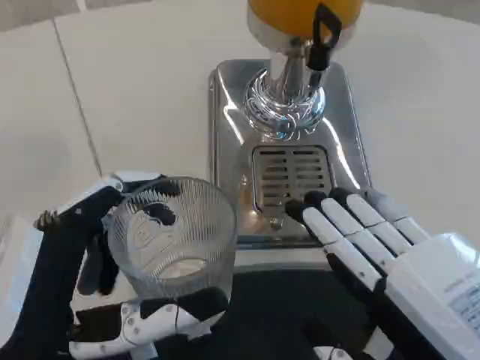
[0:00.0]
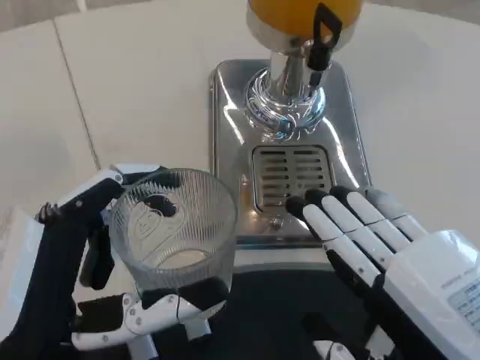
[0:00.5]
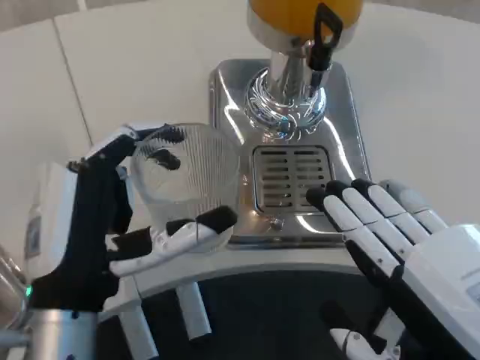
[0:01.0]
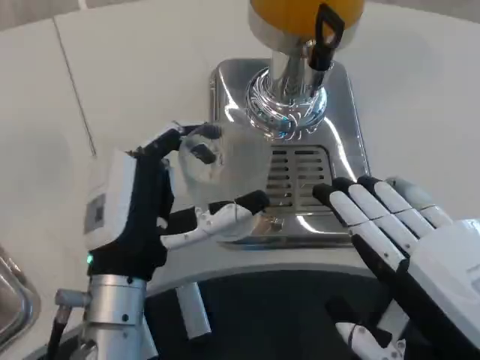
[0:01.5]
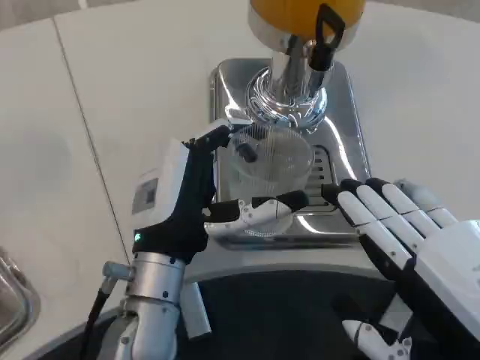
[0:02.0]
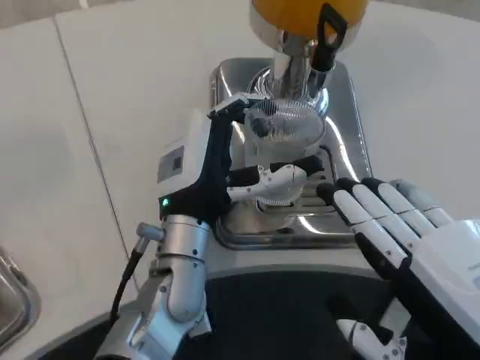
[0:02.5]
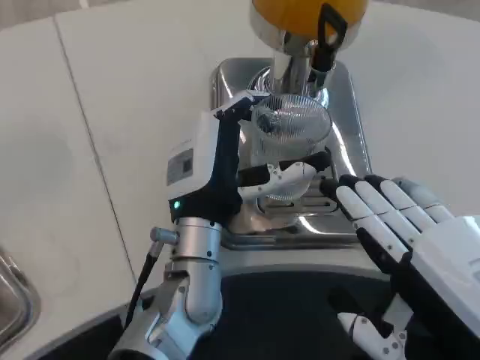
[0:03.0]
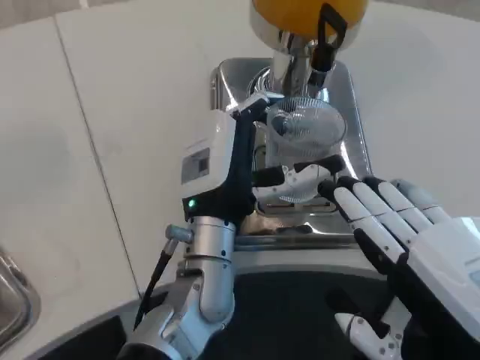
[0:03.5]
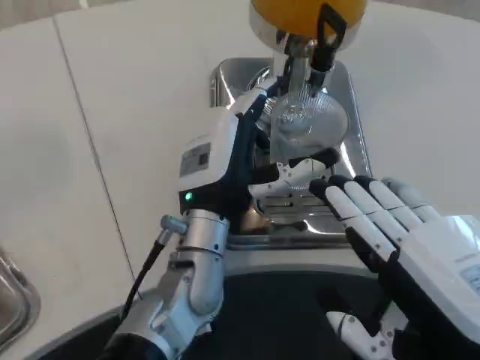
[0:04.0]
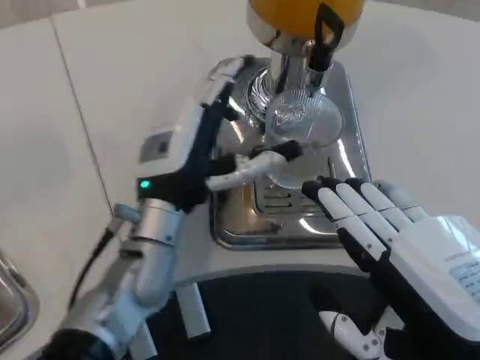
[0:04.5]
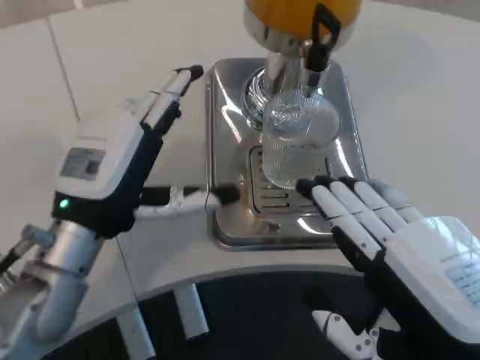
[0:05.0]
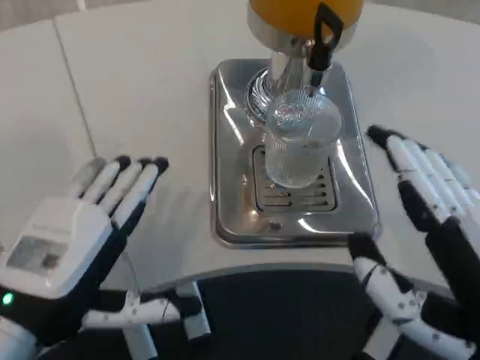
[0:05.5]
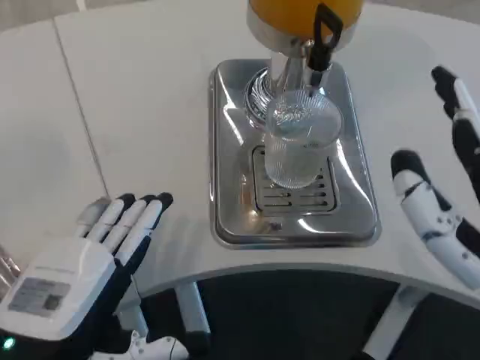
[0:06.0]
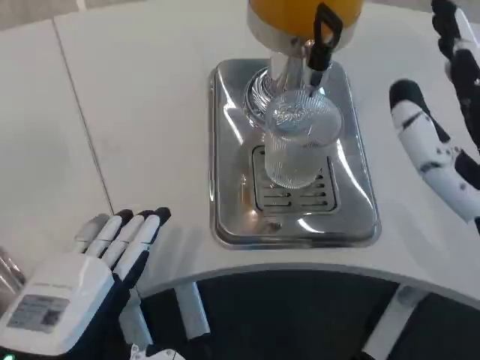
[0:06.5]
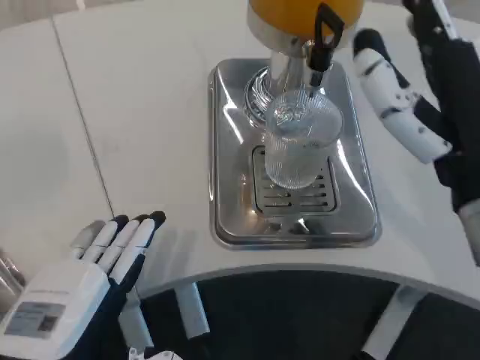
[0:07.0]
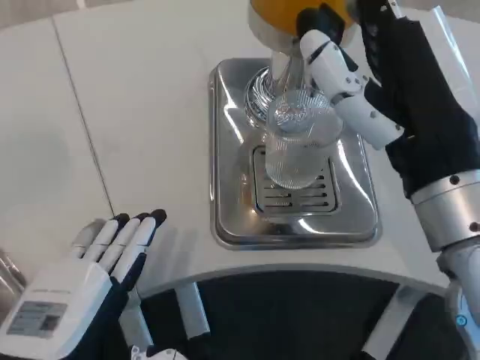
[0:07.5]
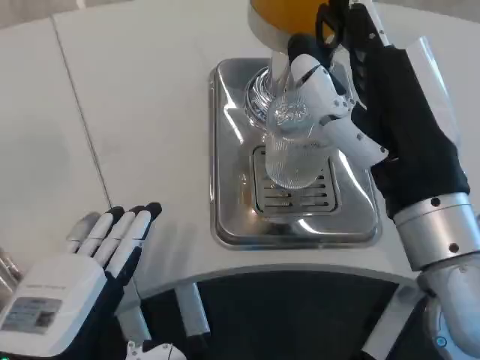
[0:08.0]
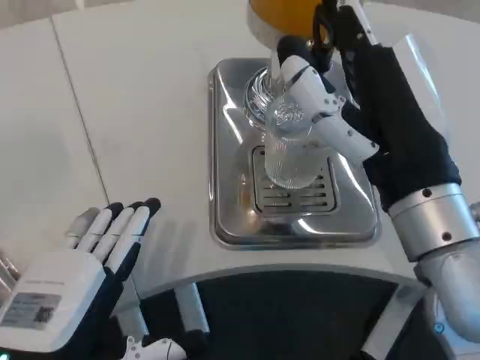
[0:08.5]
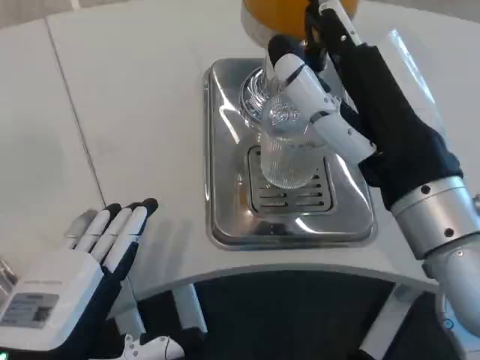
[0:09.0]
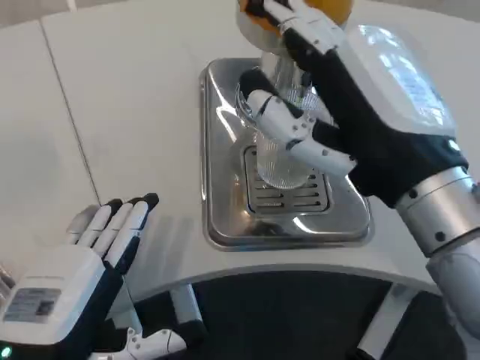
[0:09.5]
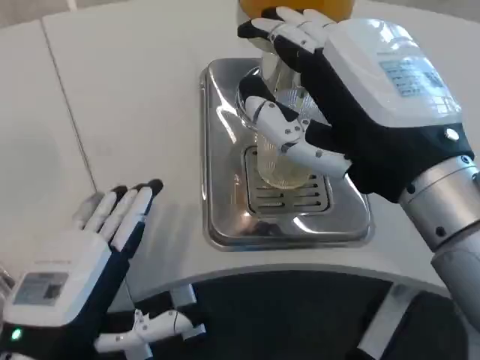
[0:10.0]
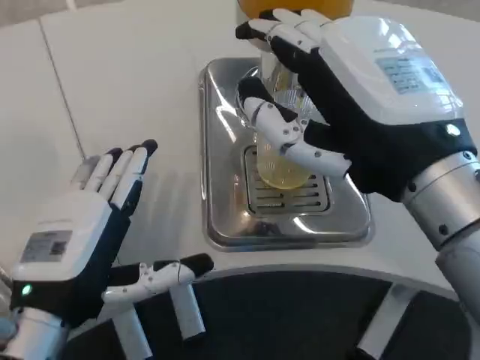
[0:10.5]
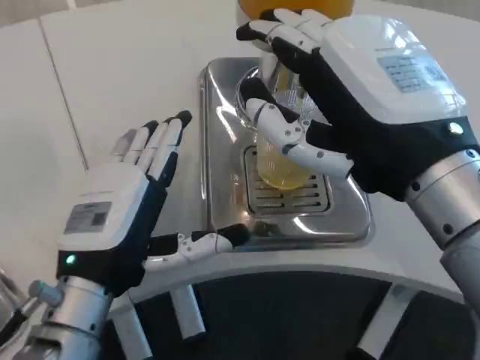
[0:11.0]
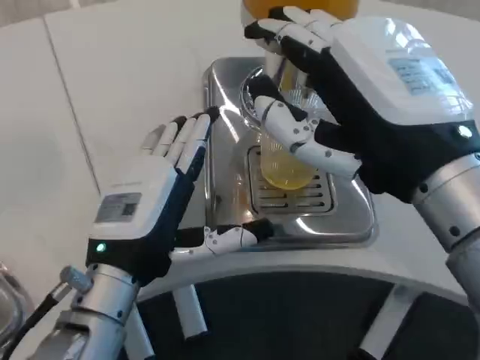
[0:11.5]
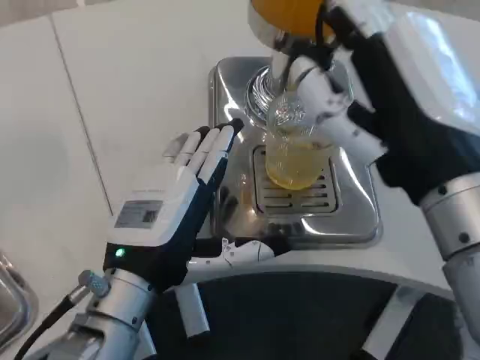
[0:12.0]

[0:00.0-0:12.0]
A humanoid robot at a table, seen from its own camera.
Task of the whole recording: Grasp the cup under the faucet to collect the drink, then remove the cup.
0:00.0 to 0:02.0: The left hand moves forward and to the right, approximately 15 cm.
0:02.0 to 0:04.0: The left hand shifts by roughly 5 cm.
0:04.0 to 0:06.0: The left hand goes some 20 cm backward and to the left.
0:06.0 to 0:08.0: The right hand moves forward and to the left, approximately 10 cm.
0:10.0 to 0:12.0: The left hand moves forward and to the right, about 10 cm.

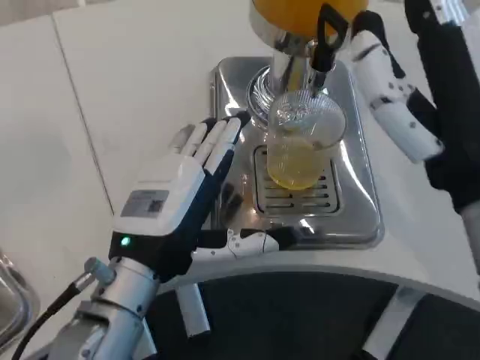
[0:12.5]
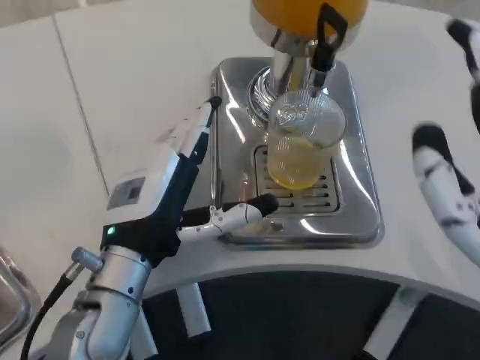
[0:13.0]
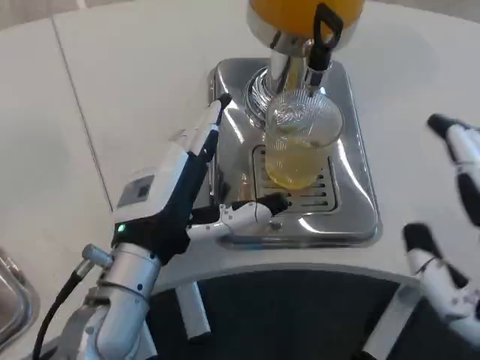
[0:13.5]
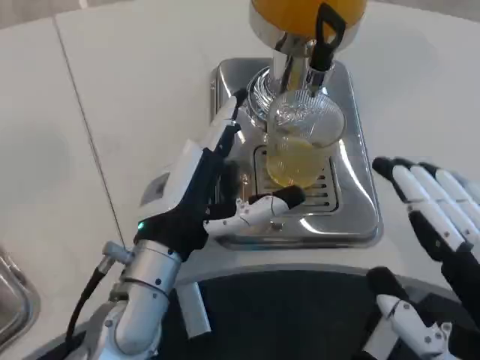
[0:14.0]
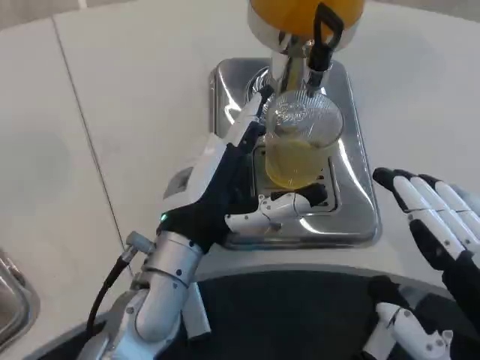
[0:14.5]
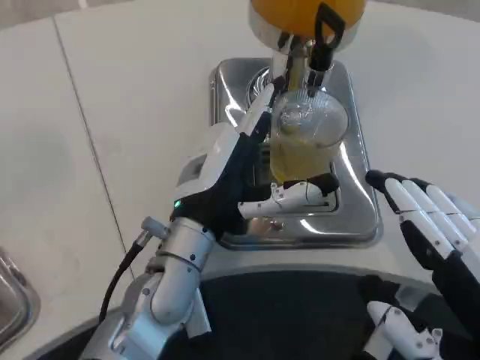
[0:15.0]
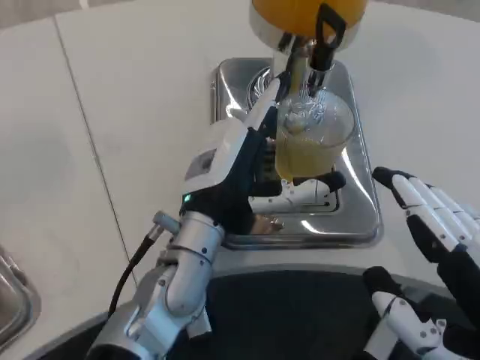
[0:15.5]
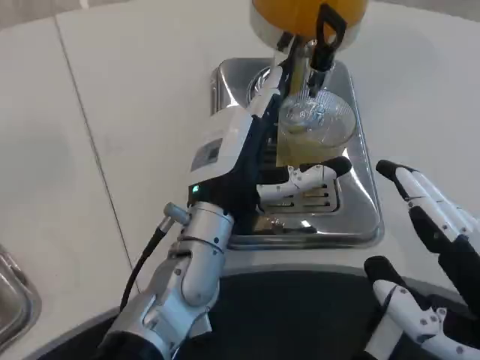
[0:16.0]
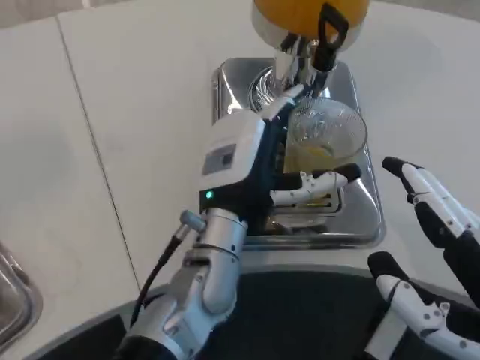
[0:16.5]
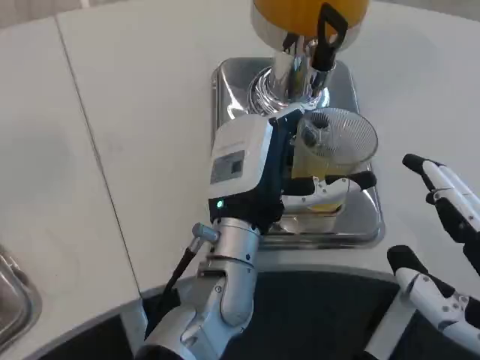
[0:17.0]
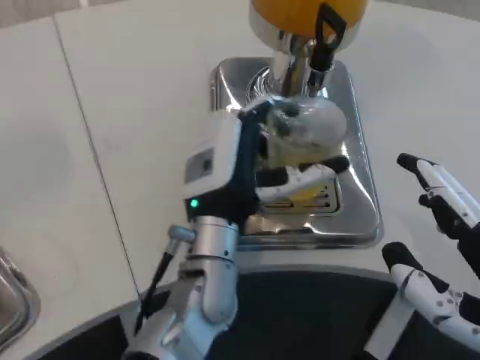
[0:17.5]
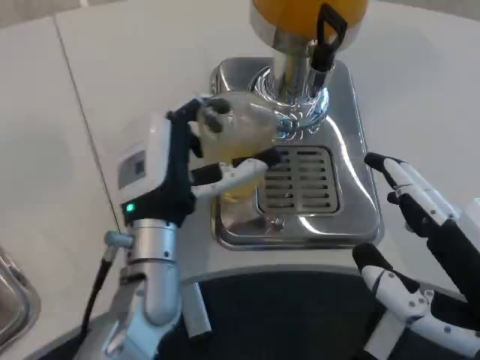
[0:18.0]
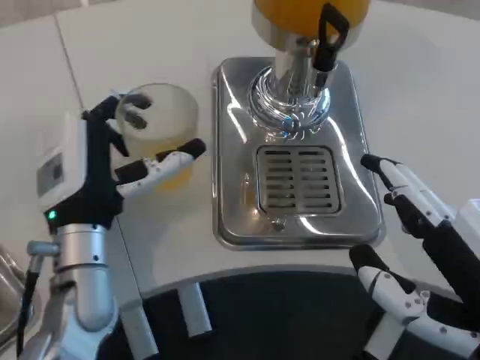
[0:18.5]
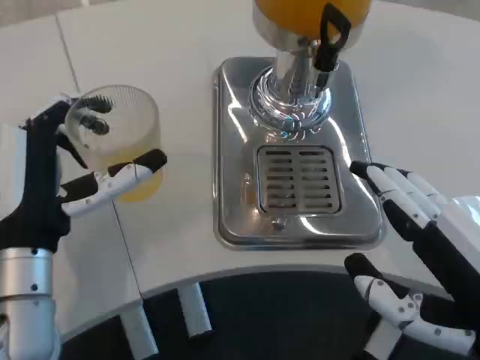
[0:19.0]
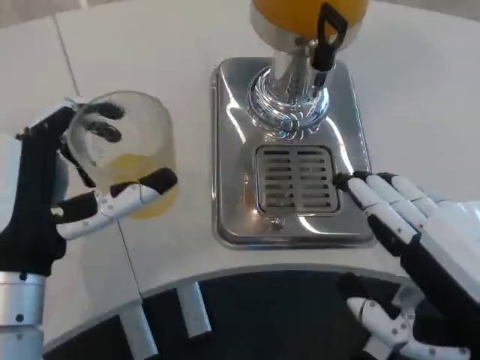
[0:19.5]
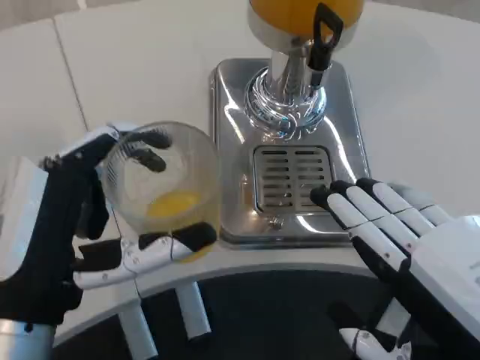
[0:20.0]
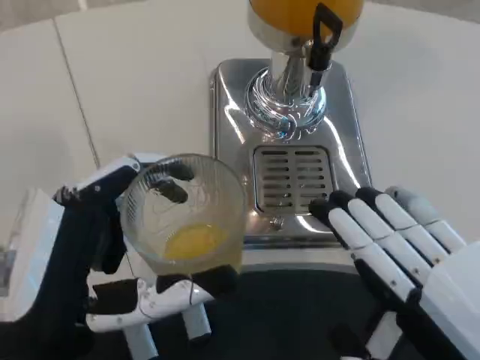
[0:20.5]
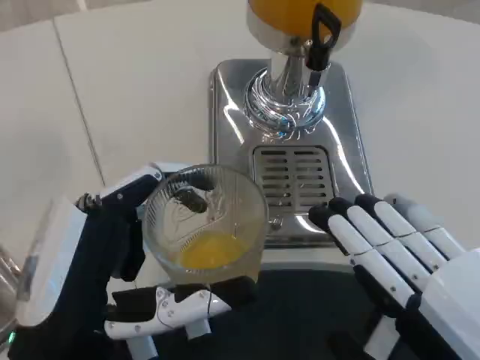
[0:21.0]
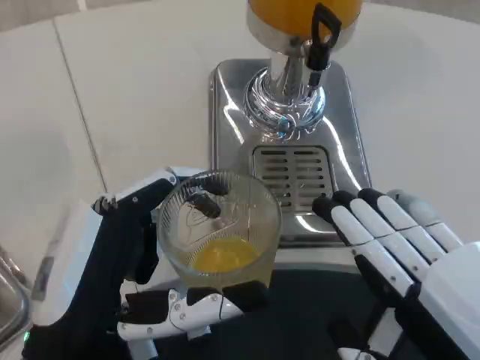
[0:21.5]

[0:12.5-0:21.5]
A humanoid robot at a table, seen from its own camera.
Task of the whole recording: Grasp the cup under the faucet to collect the drink, then remove the cup.
0:12.5 to 0:14.5: The left hand ends up roughly 5 cm from where it was. The right hand heads backward, to the right and downward, covering roughly 10 cm.
0:14.5 to 0:17.0: The left hand goes some 5 cm to the right.
0:17.0 to 0:19.5: The left hand is displaced to the left and backward by approximately 20 cm.
0:19.5 to 0:21.5: The left hand heads backward, covering roughly 5 cm.

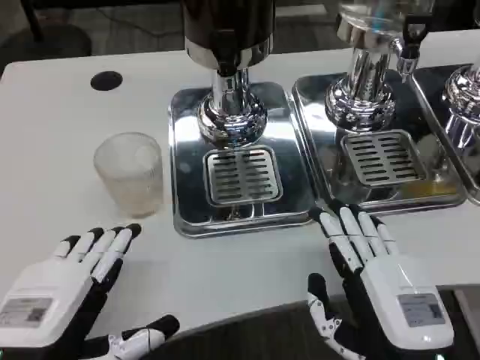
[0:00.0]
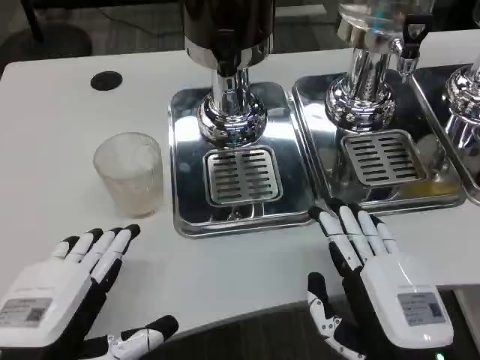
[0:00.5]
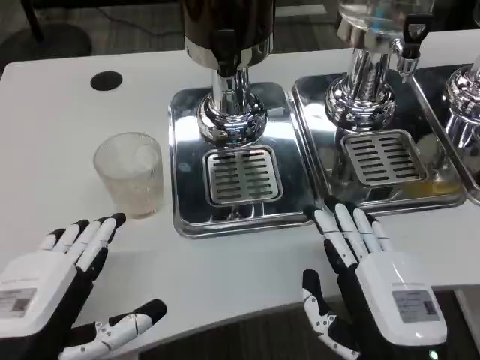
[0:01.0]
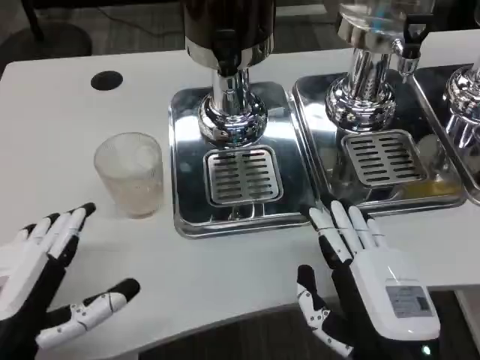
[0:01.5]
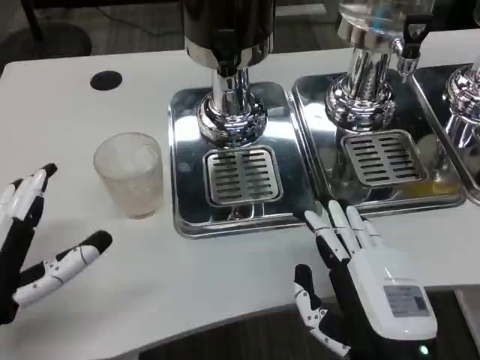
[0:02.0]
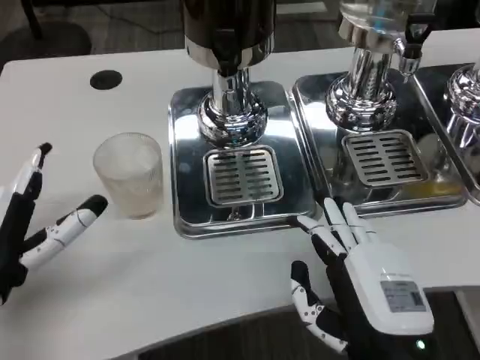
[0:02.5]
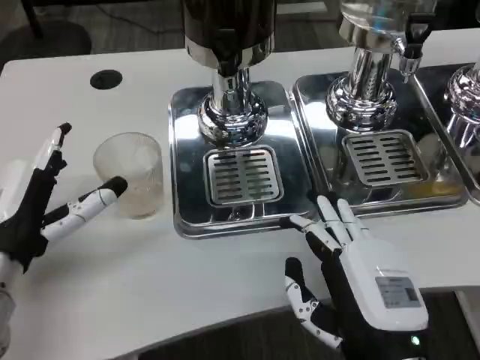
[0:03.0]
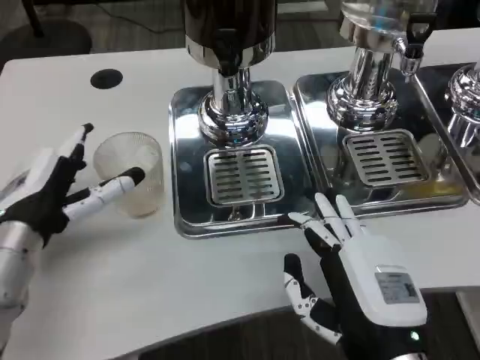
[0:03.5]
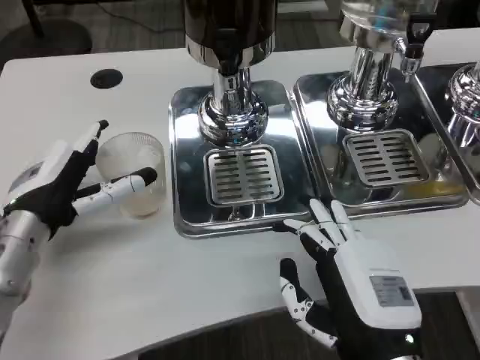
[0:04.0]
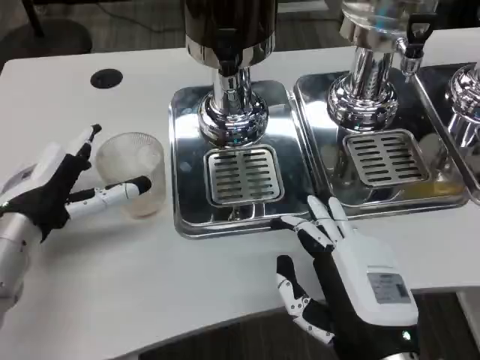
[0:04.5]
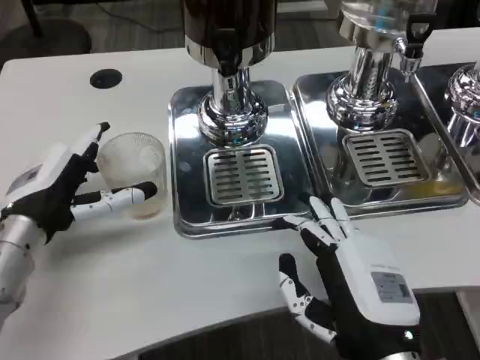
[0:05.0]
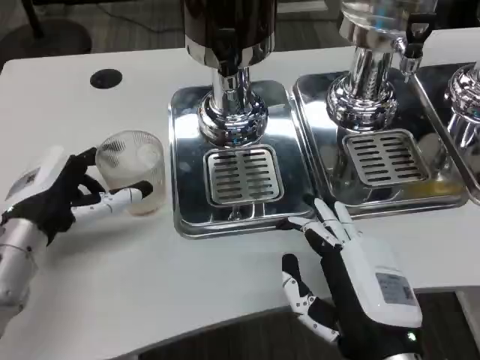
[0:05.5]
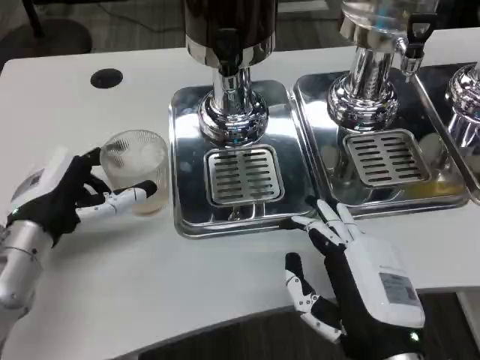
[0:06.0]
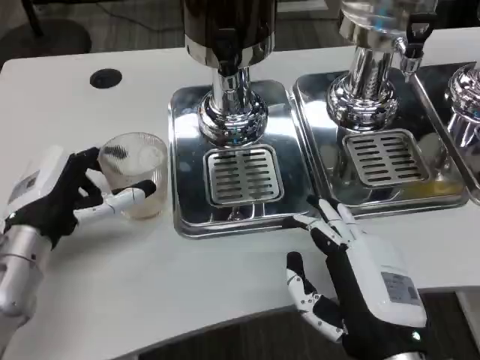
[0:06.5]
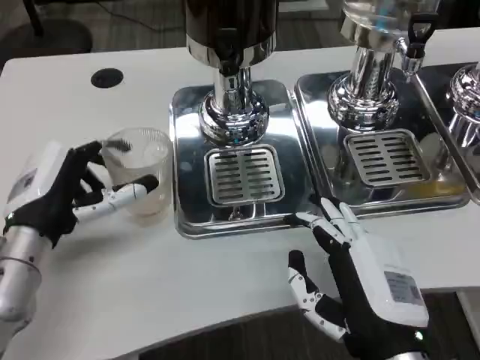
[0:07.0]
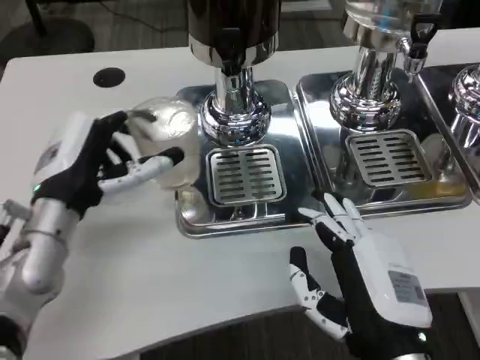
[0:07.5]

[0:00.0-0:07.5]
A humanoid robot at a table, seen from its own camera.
Task of the whole recording: Grasp the cup under the faucet to collect the drink, then remove the cup.
0:00.0 to 0:02.0: The left hand changes place by roughly 5 cm.
0:02.0 to 0:04.0: The left hand moves forward, approximately 10 cm.
0:04.0 to 0:05.5: The hands make only small movements.
